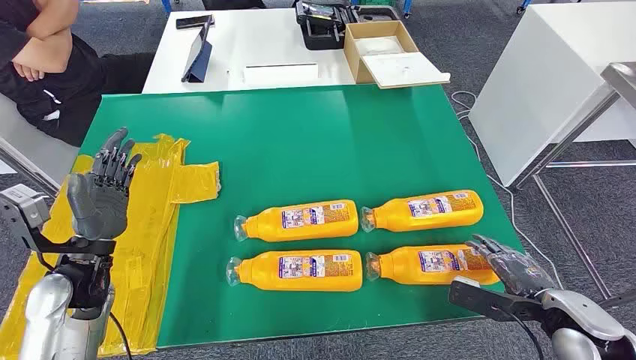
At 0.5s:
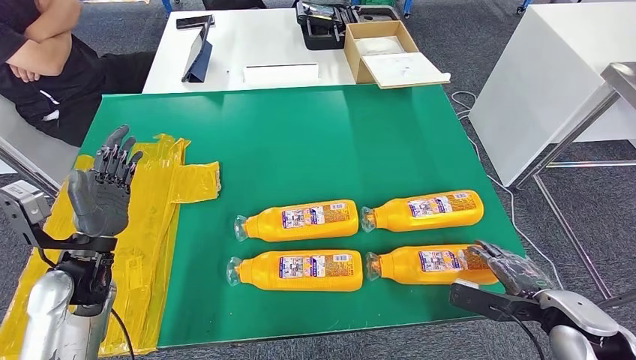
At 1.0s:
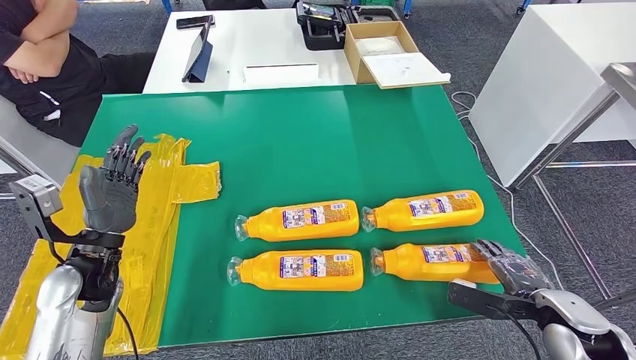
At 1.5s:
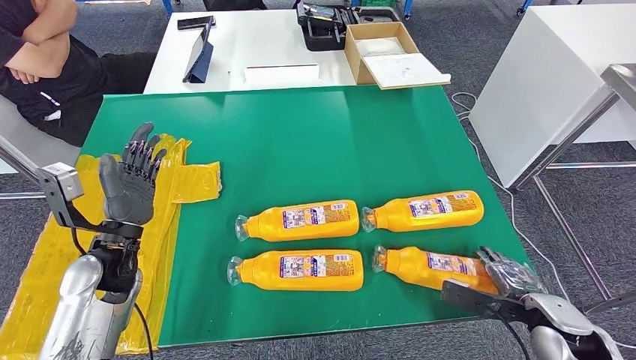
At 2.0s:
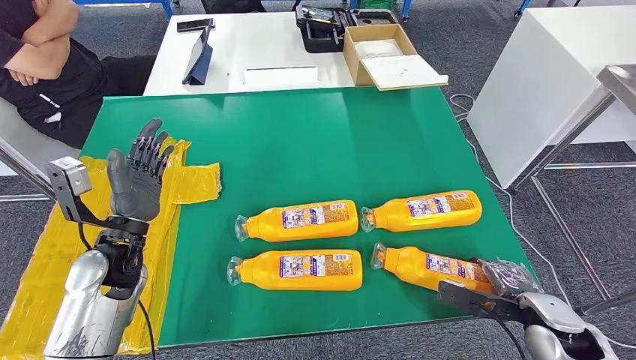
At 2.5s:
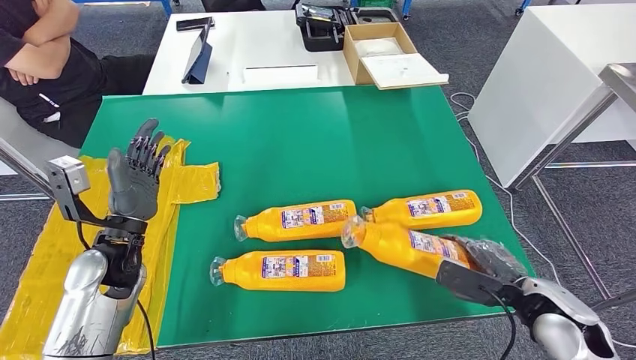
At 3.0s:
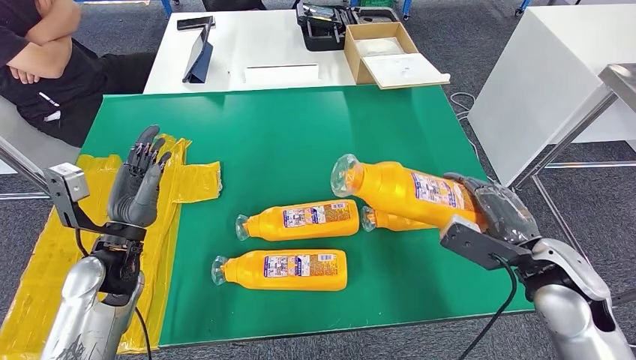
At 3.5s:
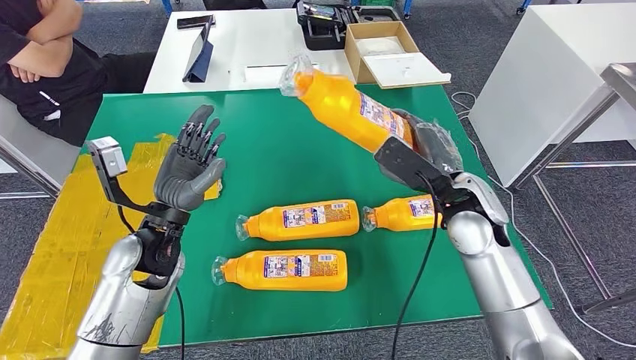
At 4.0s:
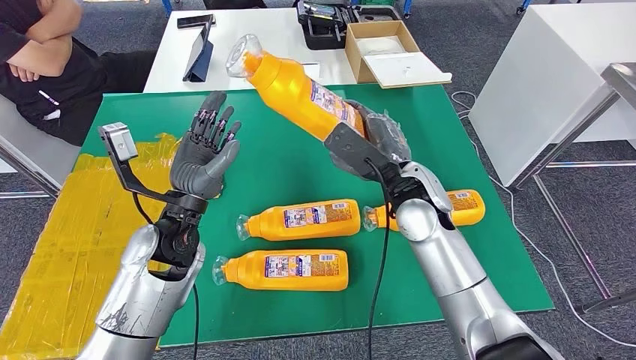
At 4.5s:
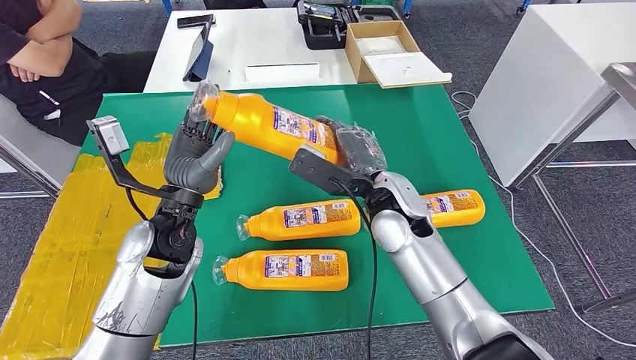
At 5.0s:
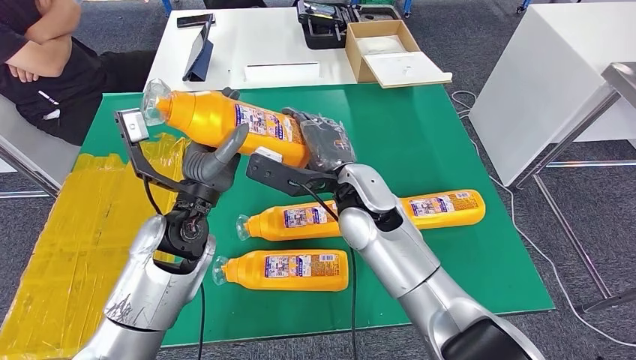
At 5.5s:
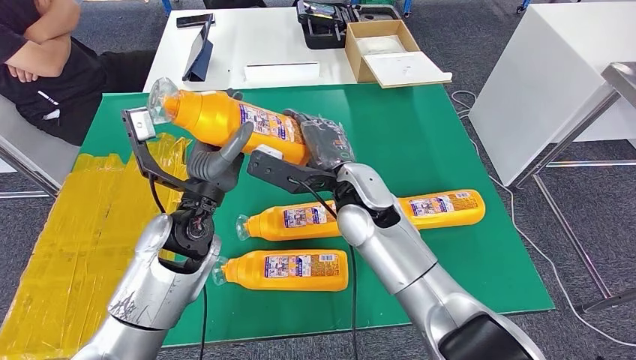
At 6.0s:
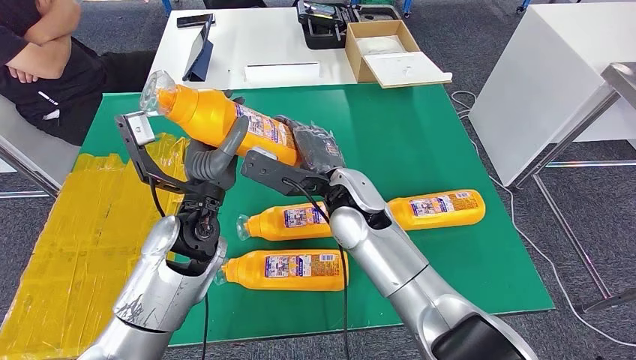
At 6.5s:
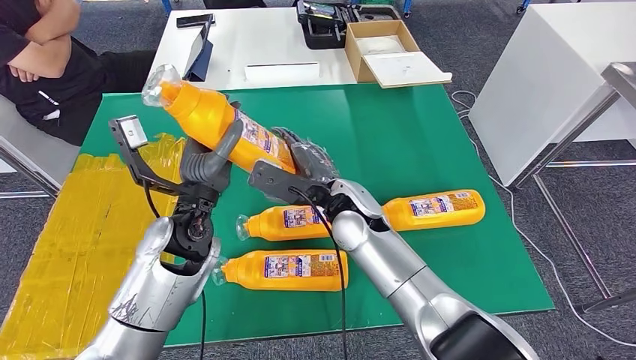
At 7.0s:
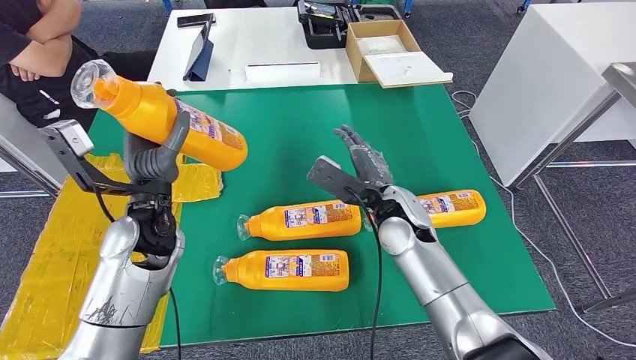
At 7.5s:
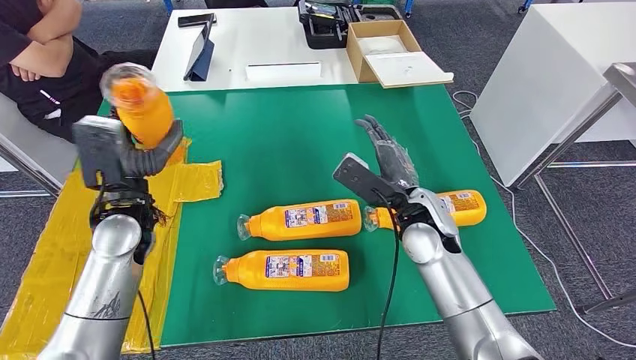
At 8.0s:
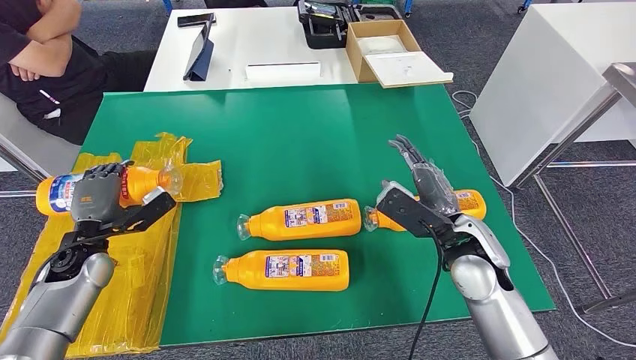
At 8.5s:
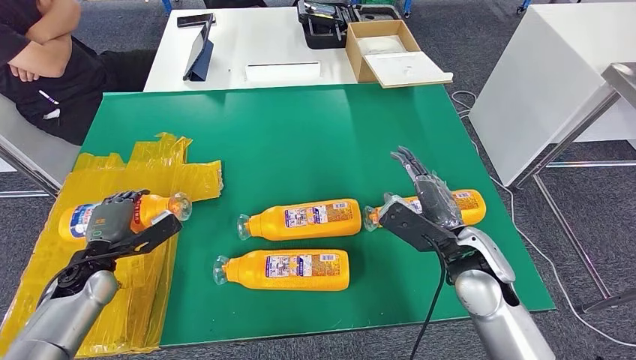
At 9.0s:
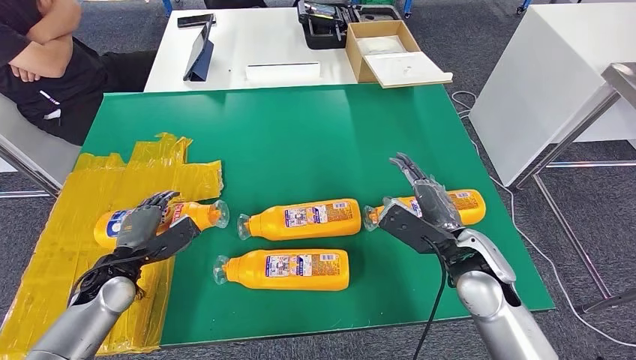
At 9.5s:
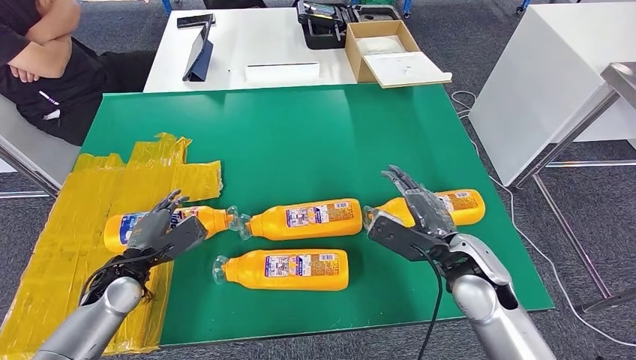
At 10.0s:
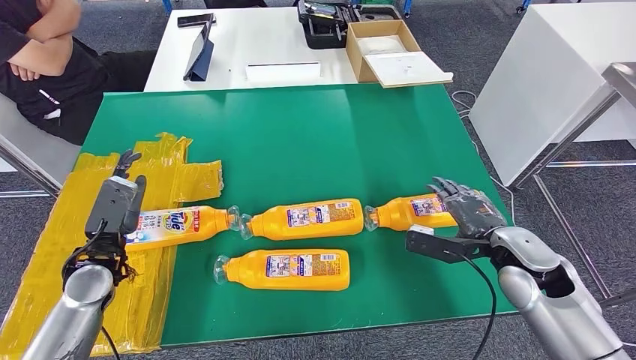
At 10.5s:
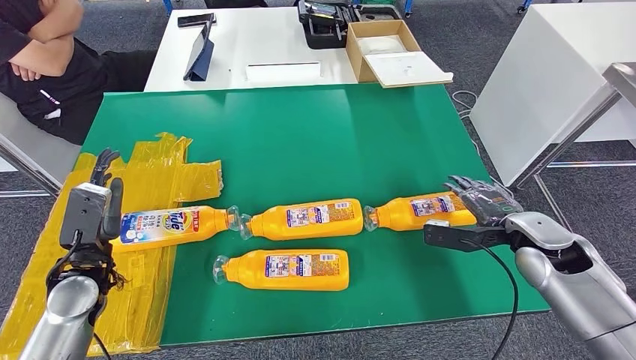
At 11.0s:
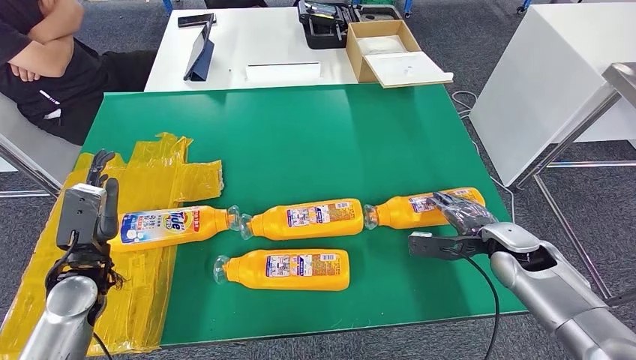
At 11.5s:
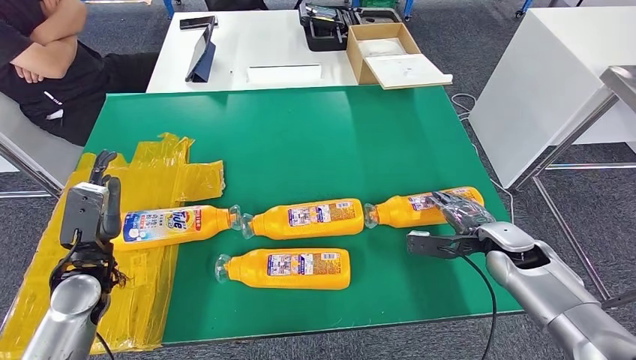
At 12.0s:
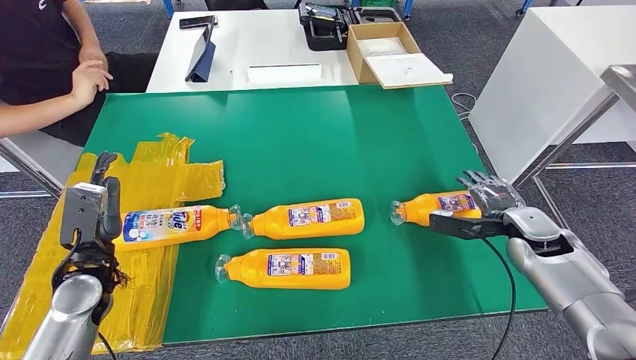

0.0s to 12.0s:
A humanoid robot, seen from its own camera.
Step, 0.0s to 4.5s: Take the bottle from the table.
Step, 5.0s to 10.0s: Flip the bottle to face forward.

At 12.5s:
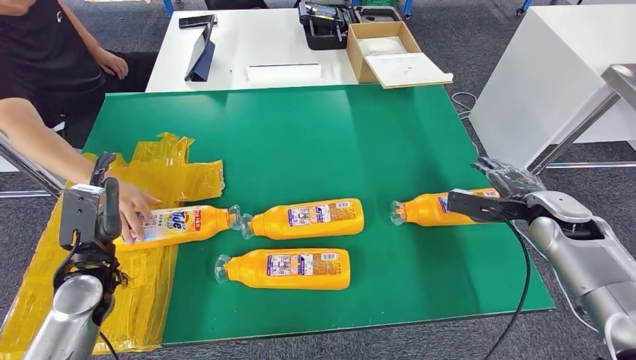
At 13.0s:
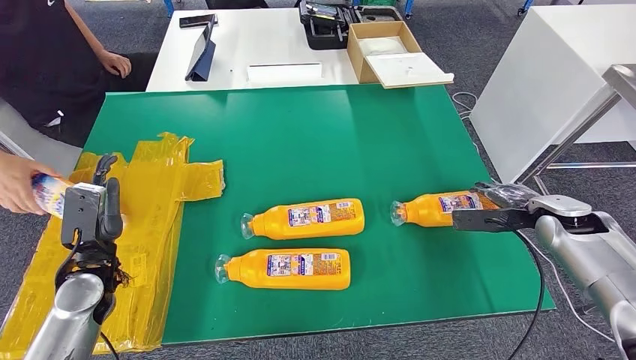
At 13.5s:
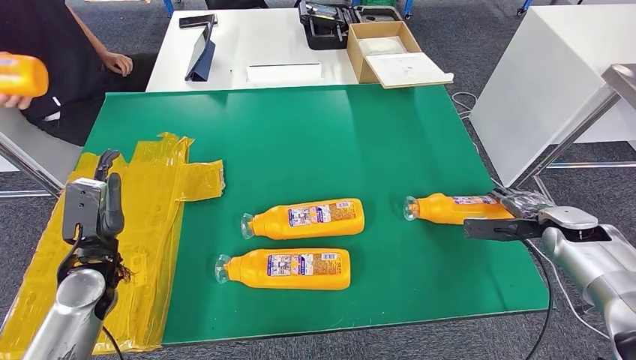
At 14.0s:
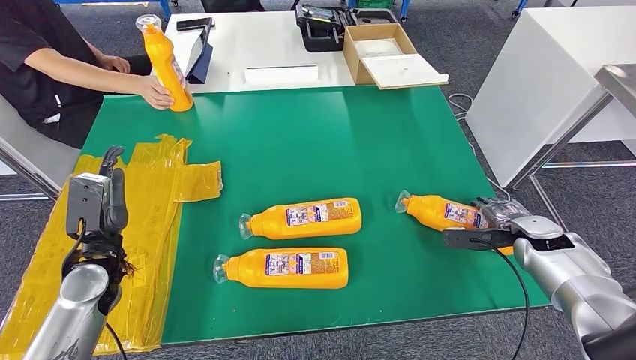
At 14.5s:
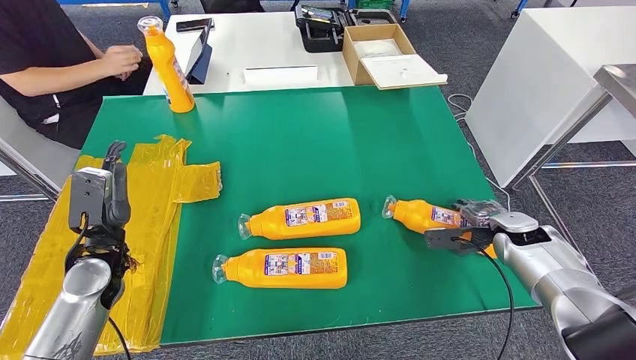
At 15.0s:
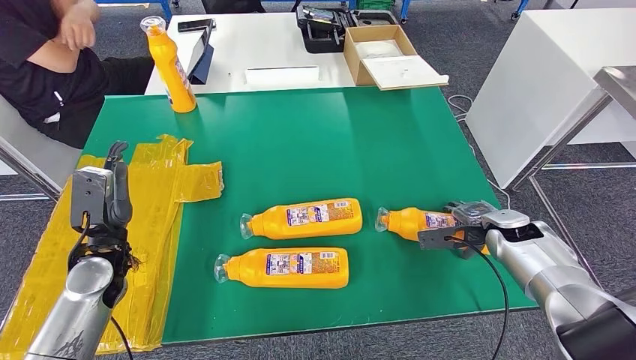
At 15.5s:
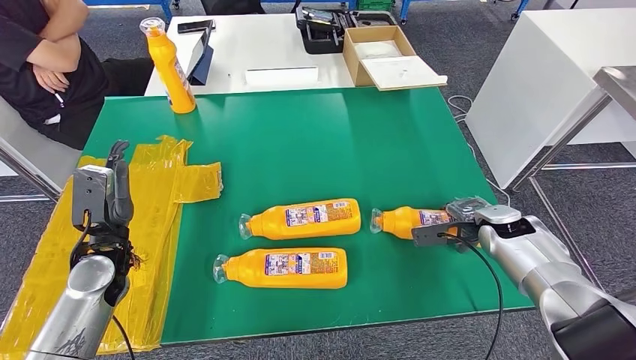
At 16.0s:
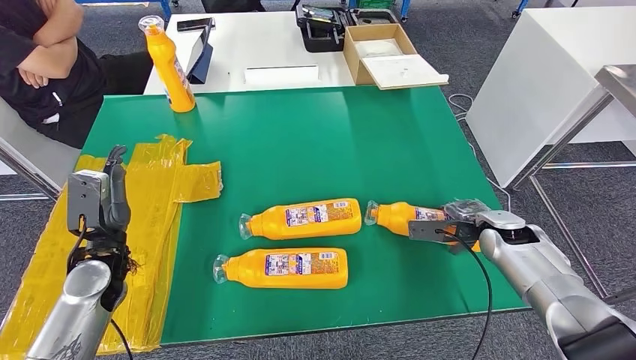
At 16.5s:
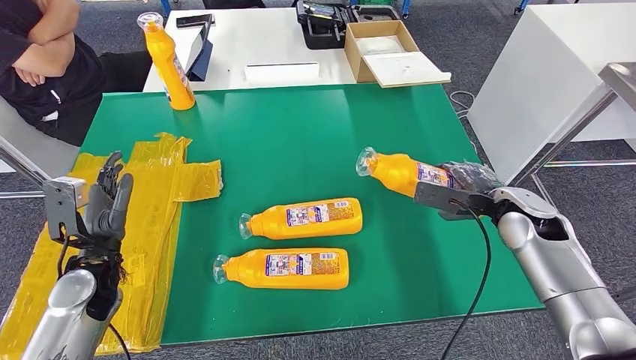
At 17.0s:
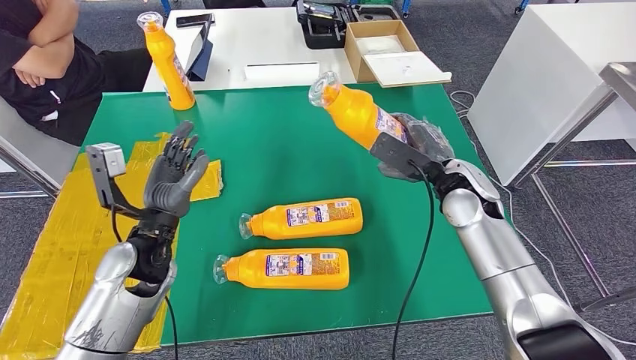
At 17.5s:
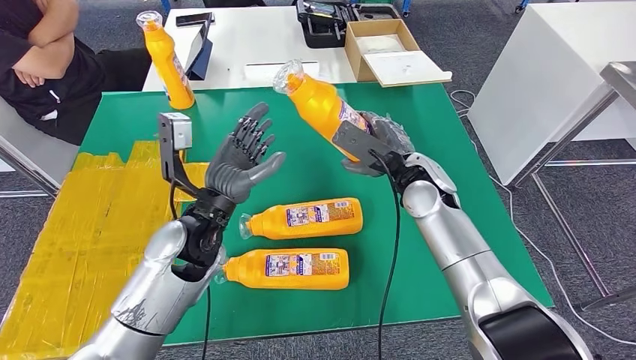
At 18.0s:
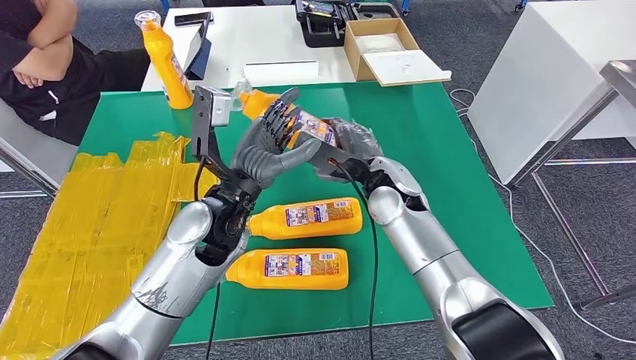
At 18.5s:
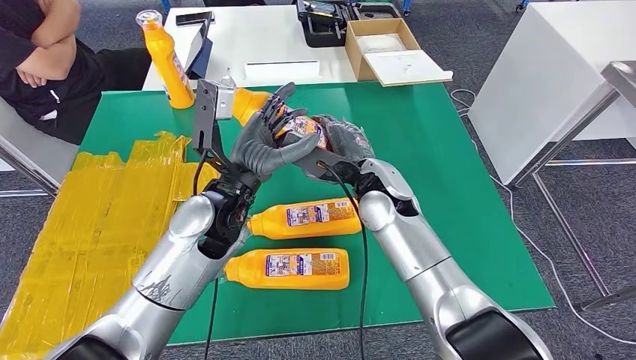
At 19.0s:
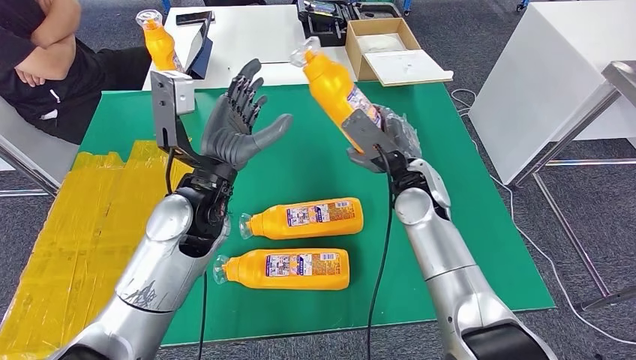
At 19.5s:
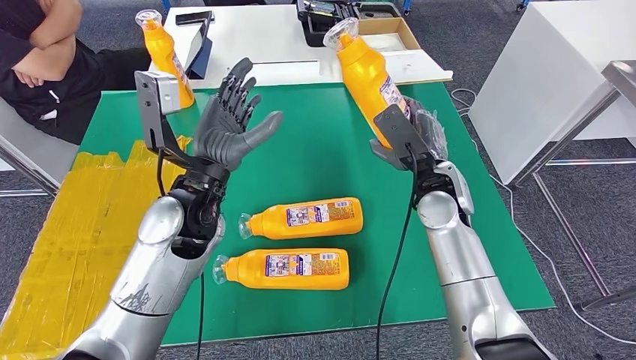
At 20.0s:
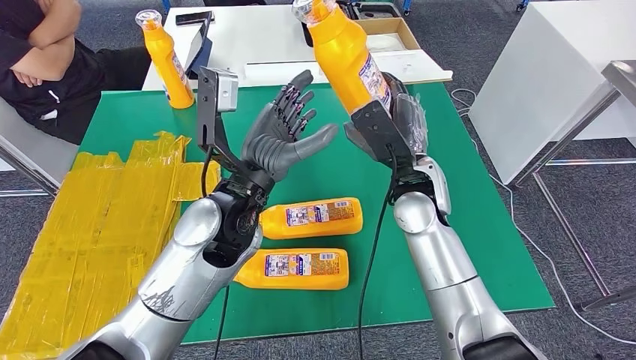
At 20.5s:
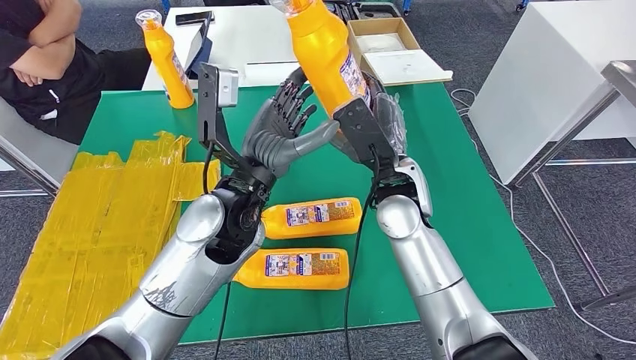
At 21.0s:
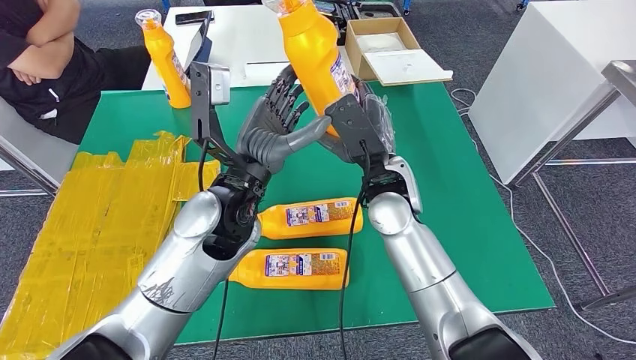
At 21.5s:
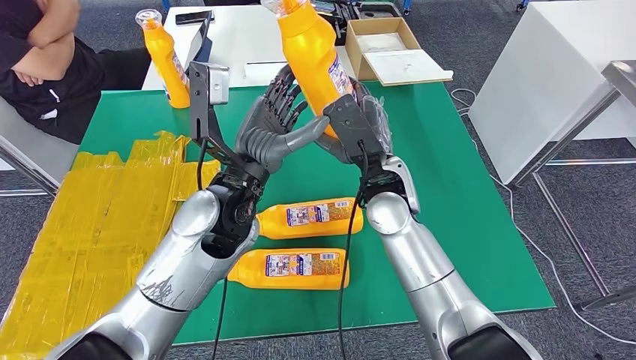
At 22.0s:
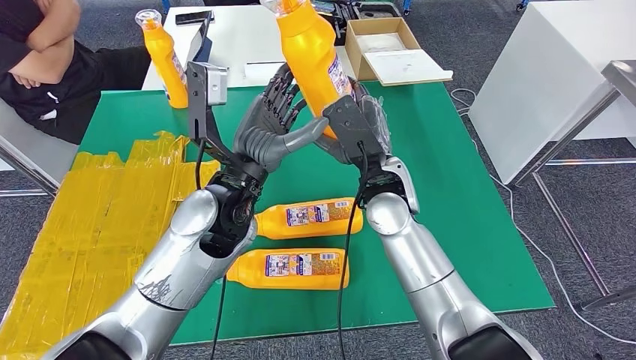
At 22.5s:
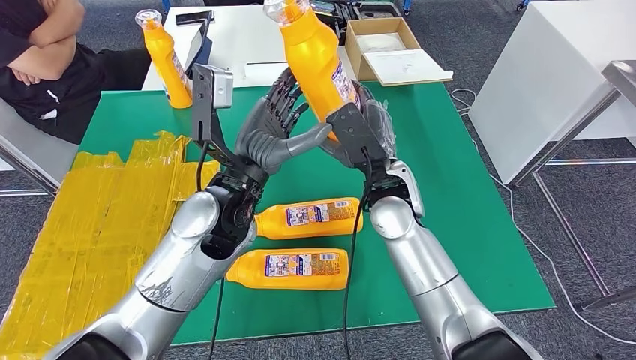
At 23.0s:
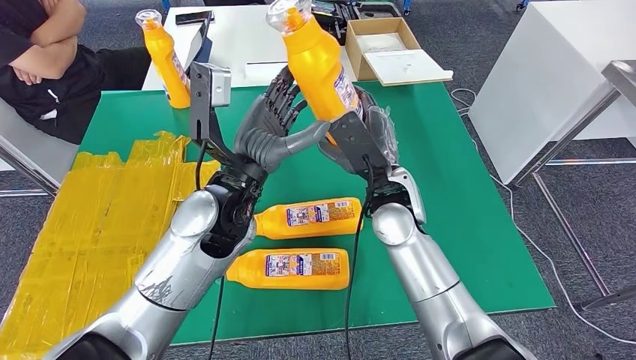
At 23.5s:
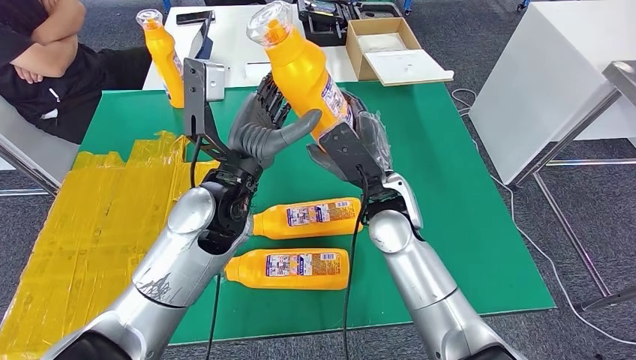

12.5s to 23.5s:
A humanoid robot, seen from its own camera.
Step, 13.0s to 19.0s: Pick up the bottle from the table.
14.5s to 16.0s: There are only small adjustments of the hands.
20.0s to 21.5s: The right hand heads to the left, covering roughly 5 cm.
21.5s to 23.5s: There are only small adjustments of the hands.
